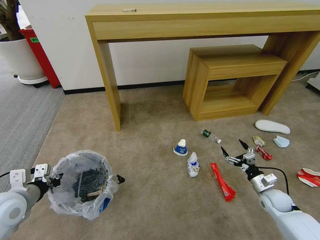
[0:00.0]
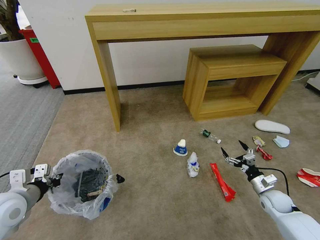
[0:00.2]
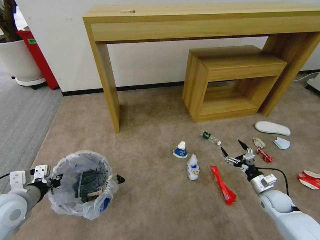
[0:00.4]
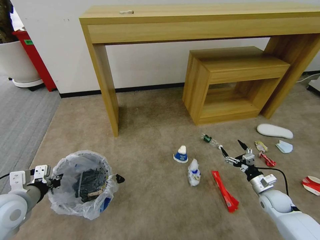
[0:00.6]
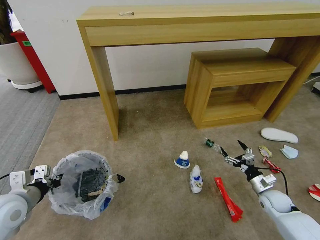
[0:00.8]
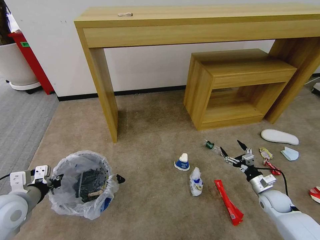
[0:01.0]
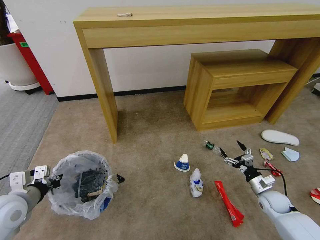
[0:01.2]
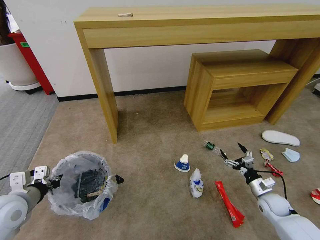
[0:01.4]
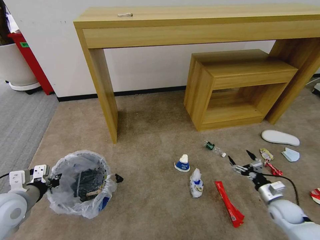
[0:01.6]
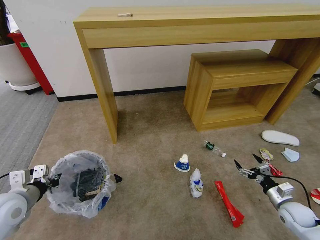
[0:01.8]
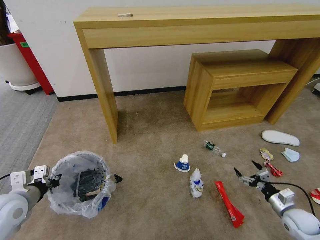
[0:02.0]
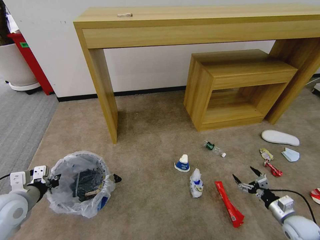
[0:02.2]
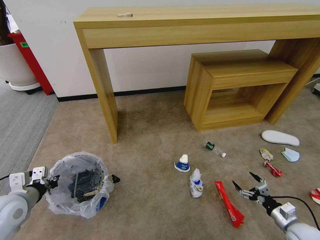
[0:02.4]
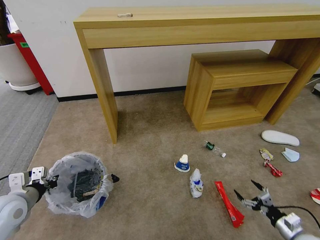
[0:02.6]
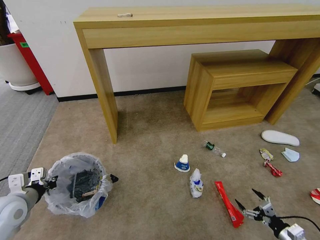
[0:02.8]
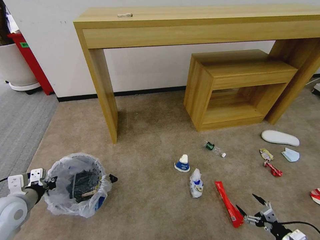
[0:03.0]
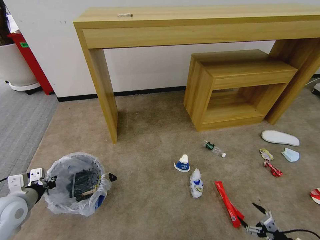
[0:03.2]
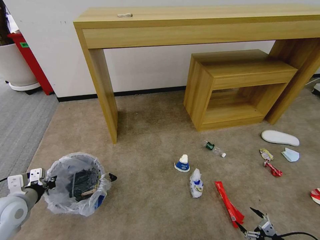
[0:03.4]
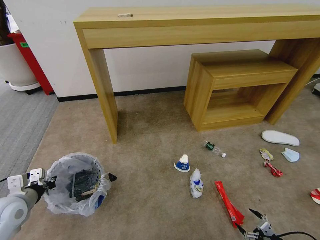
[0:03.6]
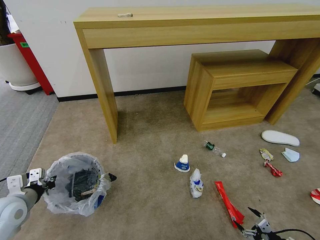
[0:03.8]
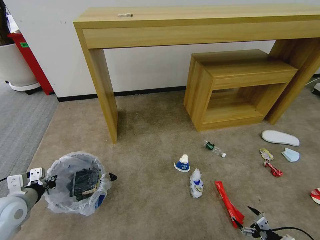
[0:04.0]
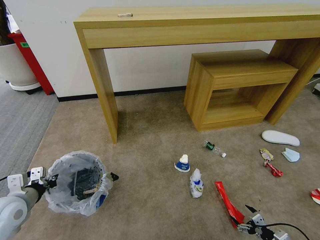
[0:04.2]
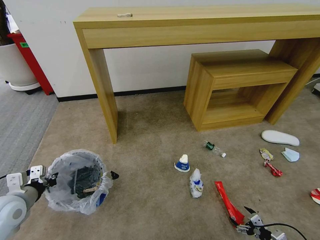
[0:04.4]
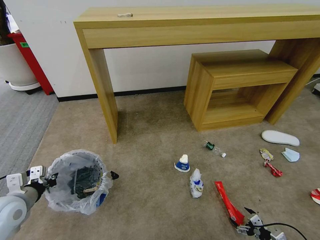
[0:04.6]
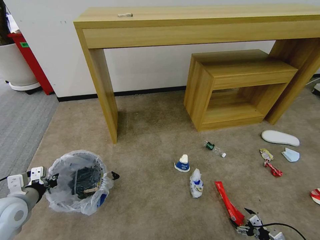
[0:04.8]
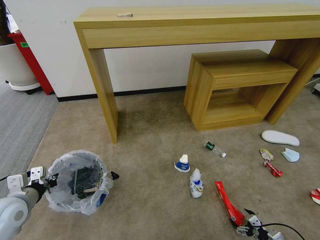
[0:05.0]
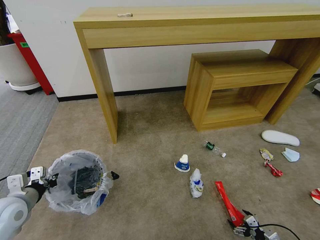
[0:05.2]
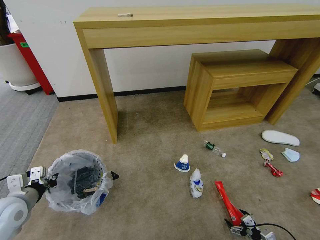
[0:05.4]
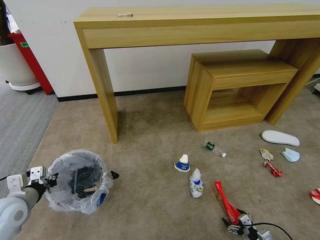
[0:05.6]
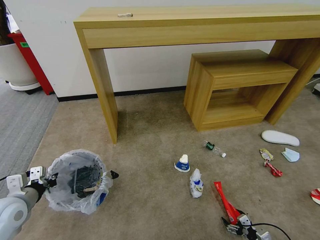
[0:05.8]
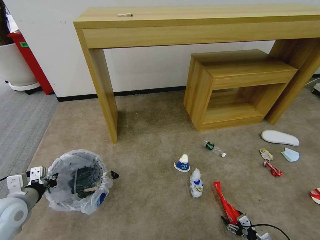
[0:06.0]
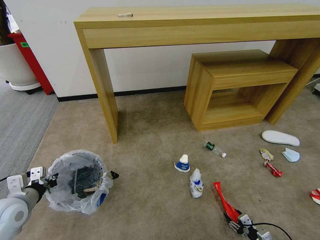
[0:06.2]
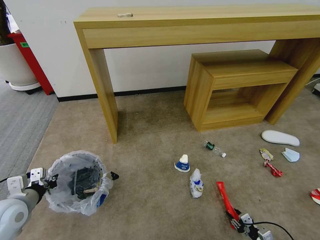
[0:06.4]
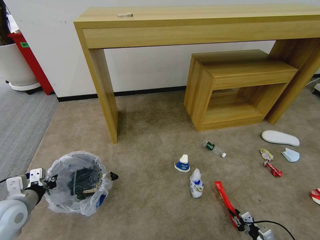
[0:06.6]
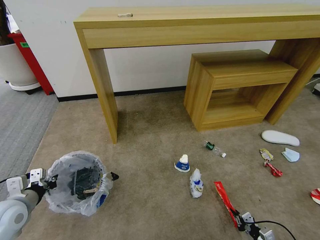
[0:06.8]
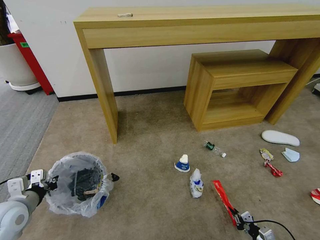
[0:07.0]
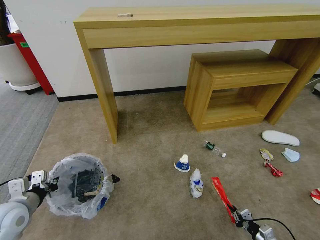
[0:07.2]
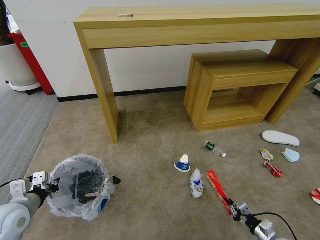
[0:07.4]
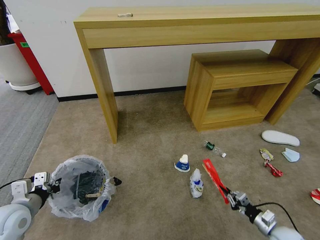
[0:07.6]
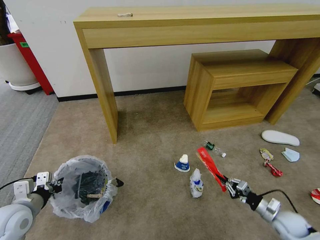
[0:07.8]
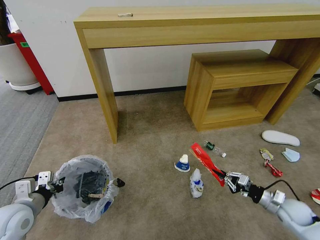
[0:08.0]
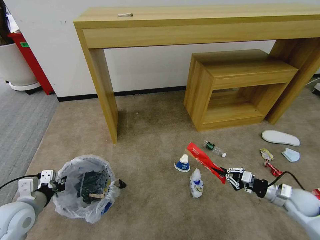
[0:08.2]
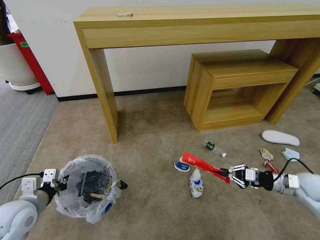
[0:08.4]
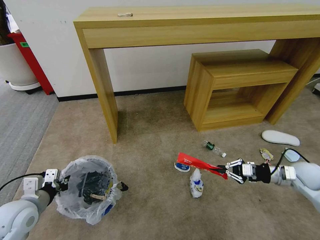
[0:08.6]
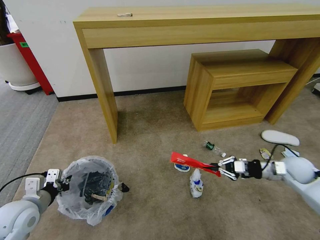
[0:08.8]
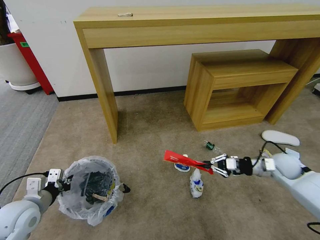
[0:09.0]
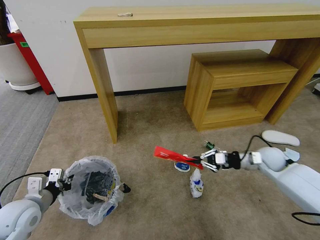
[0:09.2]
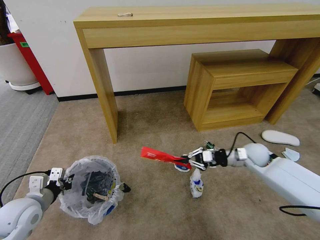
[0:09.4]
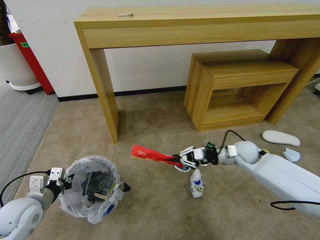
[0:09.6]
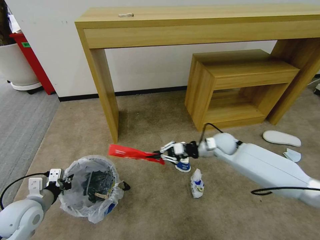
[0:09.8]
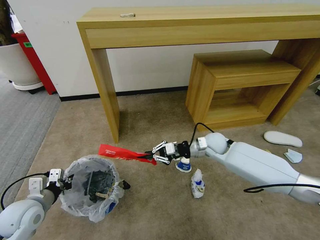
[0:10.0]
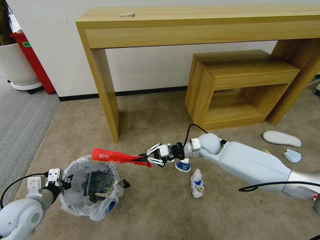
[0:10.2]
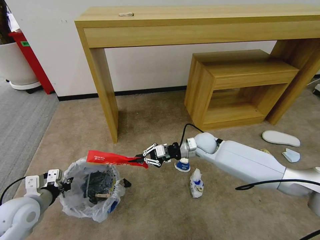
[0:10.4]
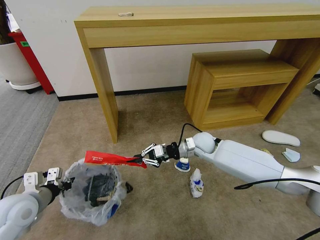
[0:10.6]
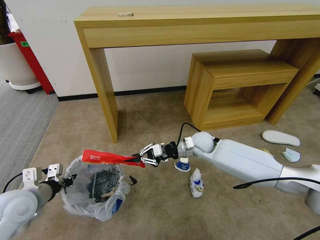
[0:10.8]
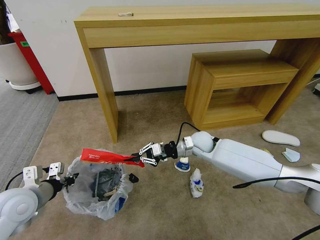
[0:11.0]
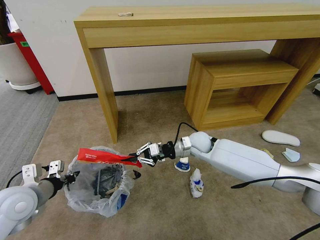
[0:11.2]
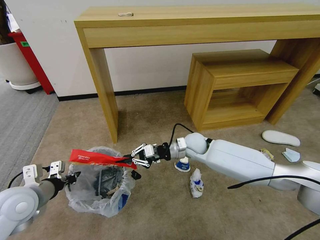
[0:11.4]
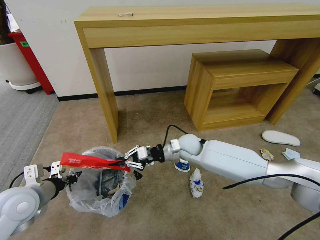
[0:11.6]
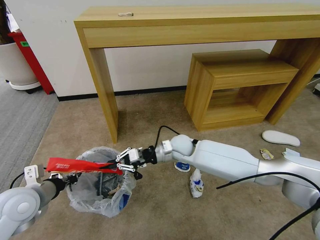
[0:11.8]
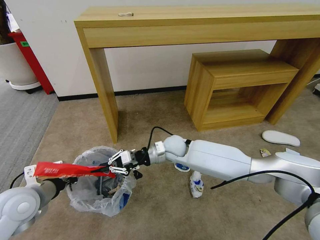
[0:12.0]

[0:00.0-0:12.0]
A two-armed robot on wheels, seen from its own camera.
Task of the whole recording: Pick up the trash bin and place the garbage on the floor into it.
0:01.6 to 0:03.0: The right gripper shifts some 15 cm backward.
0:03.0 to 0:04.4: The right gripper goes some 5 cm downward.
0:04.4 to 0:06.0: The right gripper moves approximately 5 cm.
0:06.0 to 0:07.6: The right gripper is displaced upward and forward by some 10 cm, and closes.
0:07.6 to 0:09.0: The right gripper travels upward and forward by about 30 cm.
0:09.0 to 0:10.4: The right gripper heads to the left, covering approximately 25 cm.
0:10.4 to 0:12.0: The right gripper shifts roughly 10 cm to the left; the left gripper travels upward by some 5 cm.

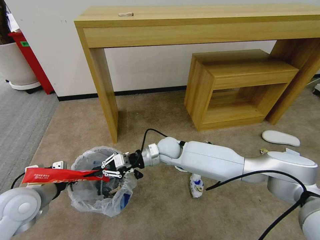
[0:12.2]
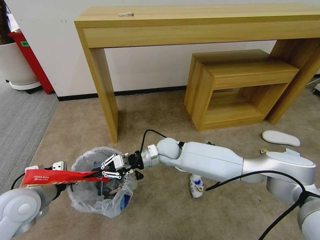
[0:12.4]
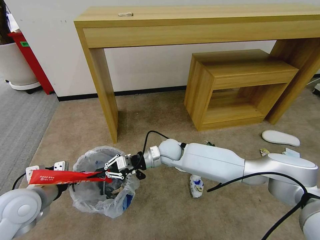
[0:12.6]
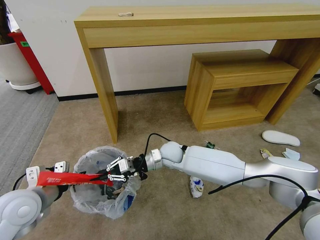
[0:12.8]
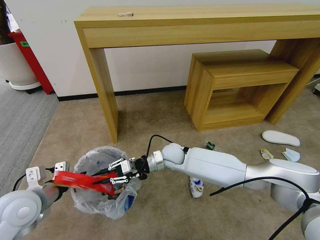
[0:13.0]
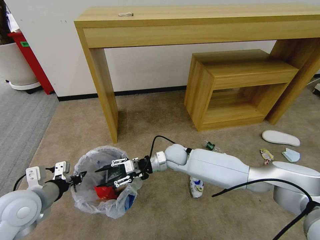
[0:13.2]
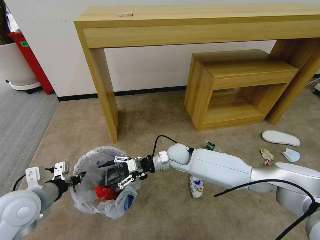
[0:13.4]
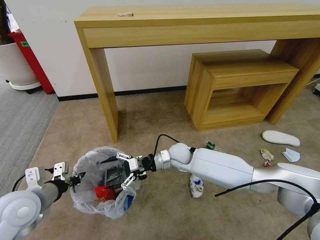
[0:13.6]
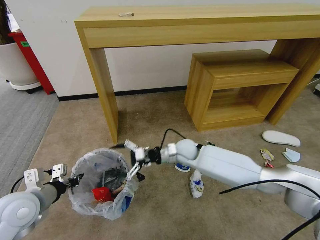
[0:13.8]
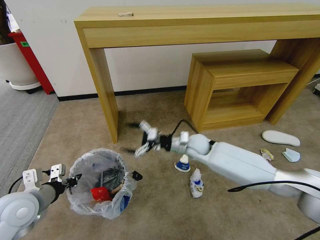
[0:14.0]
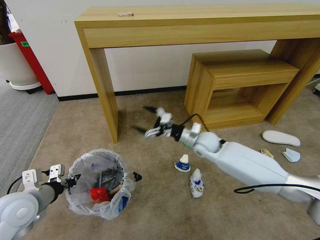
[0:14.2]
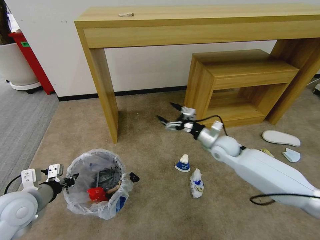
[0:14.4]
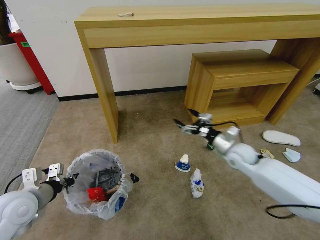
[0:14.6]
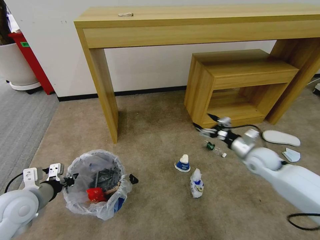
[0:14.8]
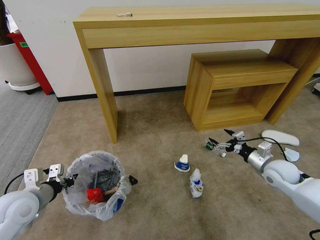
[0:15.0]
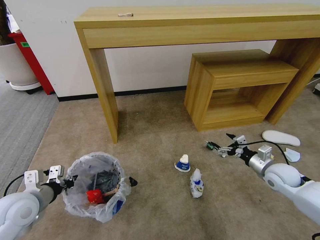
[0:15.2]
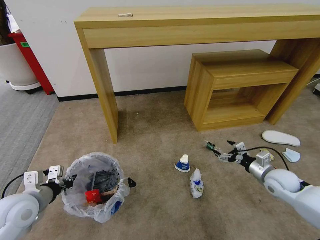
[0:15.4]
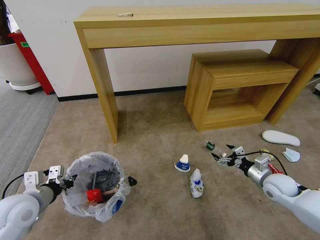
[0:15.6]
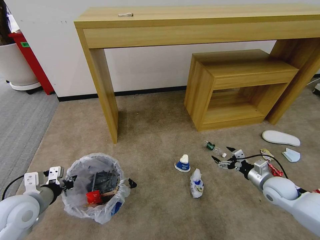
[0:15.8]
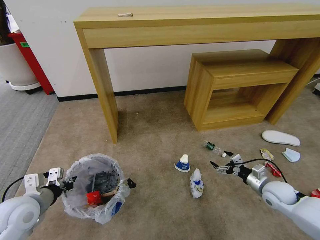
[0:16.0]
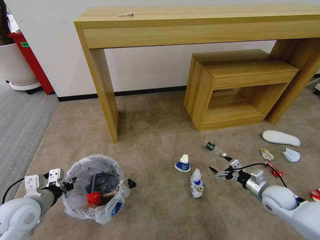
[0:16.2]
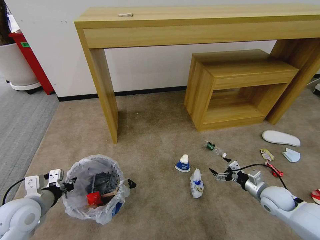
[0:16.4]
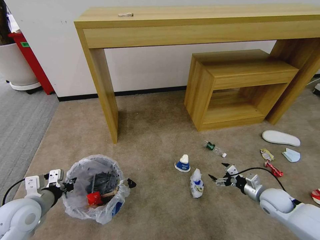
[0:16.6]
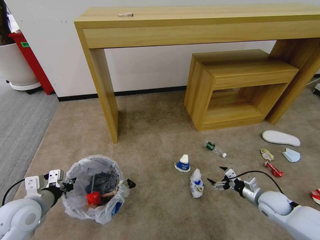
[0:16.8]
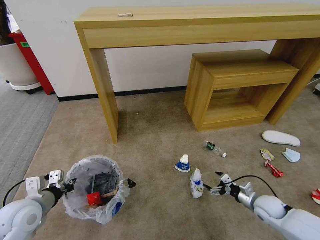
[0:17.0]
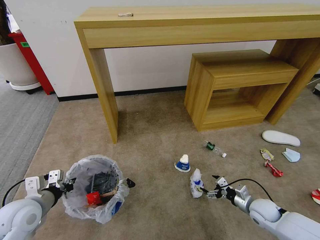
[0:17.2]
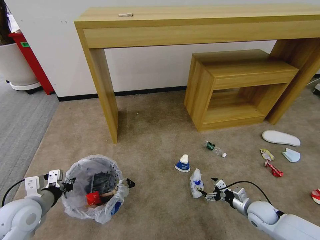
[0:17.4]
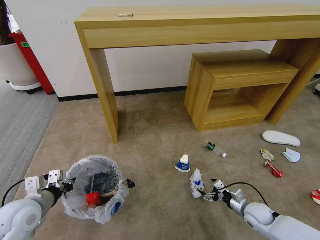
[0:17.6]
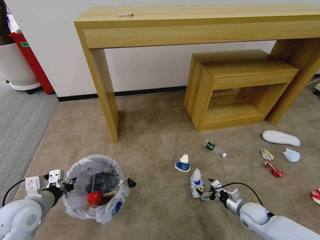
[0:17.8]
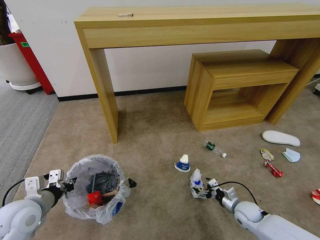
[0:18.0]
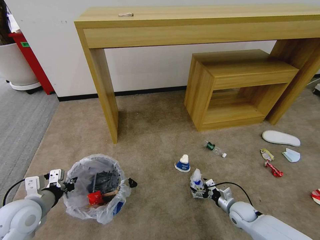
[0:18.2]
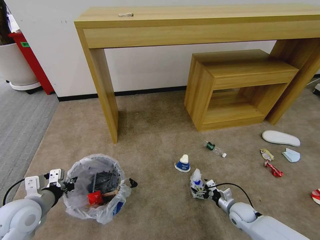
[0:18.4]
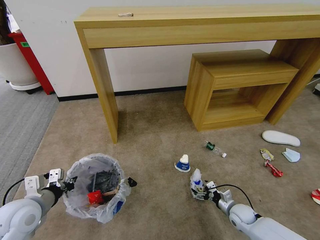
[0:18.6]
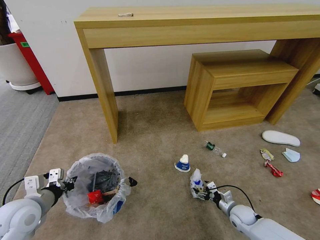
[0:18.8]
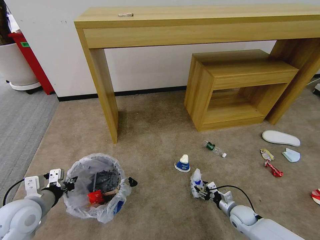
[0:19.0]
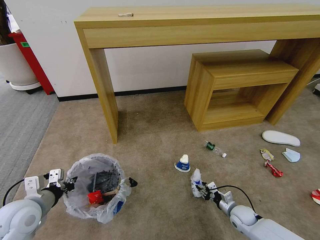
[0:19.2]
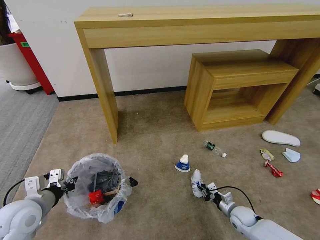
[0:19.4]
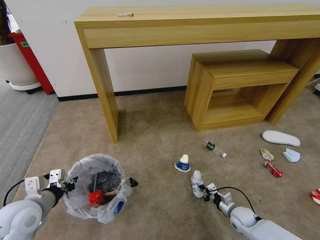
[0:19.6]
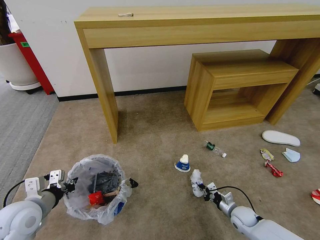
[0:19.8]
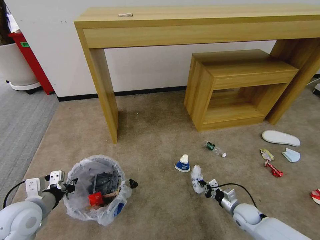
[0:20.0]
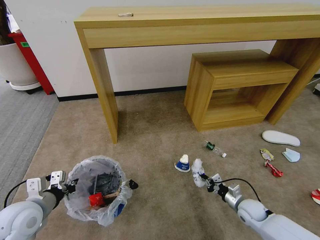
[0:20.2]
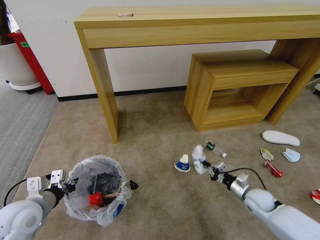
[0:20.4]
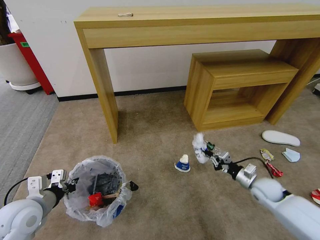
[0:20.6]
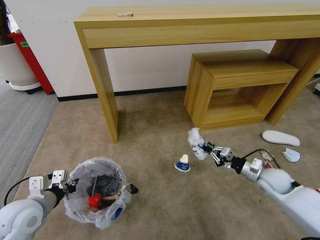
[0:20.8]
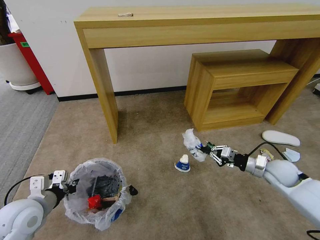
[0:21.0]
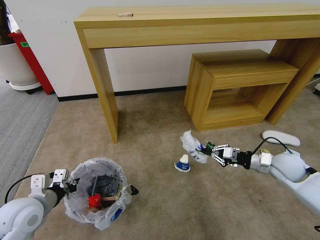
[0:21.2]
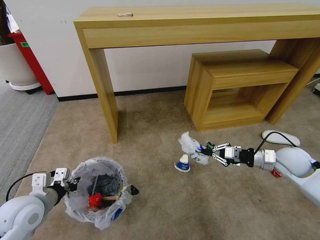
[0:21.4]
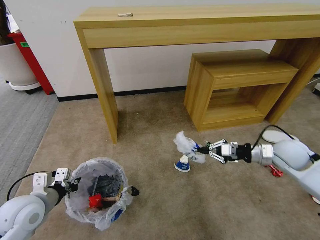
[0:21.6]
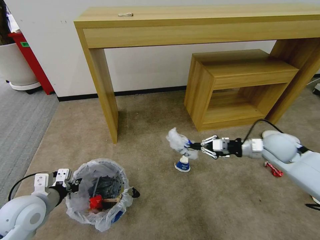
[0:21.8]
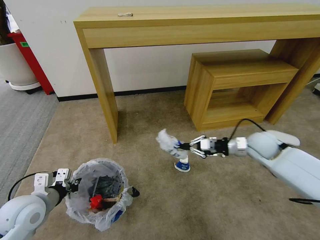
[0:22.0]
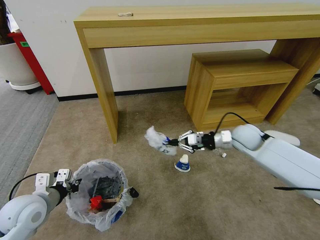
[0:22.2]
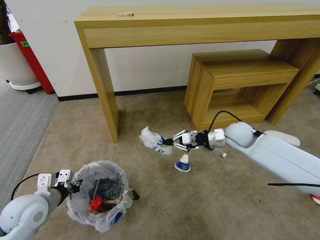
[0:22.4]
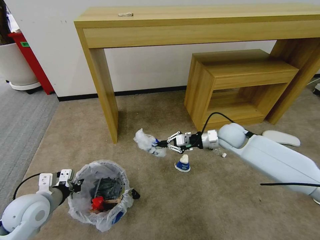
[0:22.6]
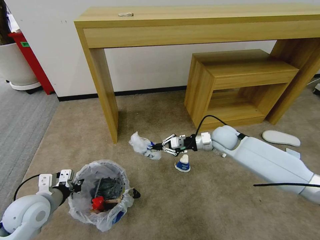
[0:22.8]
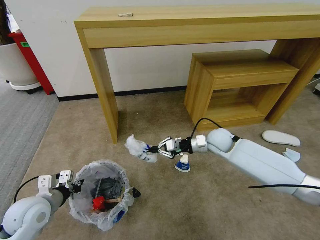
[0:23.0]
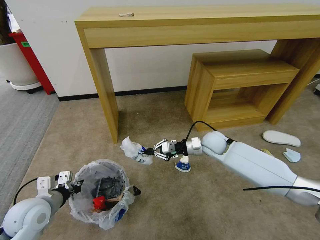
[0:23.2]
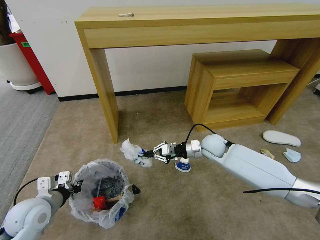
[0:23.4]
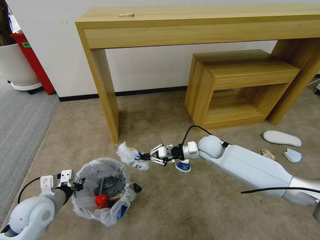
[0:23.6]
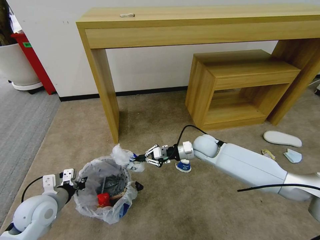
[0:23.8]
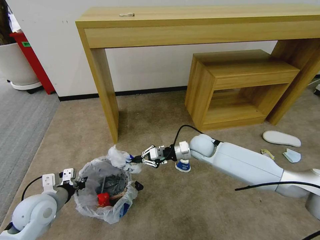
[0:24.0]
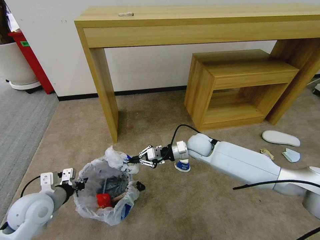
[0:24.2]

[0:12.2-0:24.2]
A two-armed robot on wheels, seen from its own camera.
Task of the whole recording: Pick up the trash bin and place the garbage on the floor into it.
0:12.2 to 0:13.8: The right gripper goes some 5 cm to the right, and opens its fingers.
0:13.8 to 0:15.2: The right gripper travels to the right by some 35 cm.
0:15.2 to 0:16.6: The right gripper shifts some 10 cm downward and backward.
0:16.6 to 0:18.2: The right gripper shifts approximately 15 cm downward and to the left.
0:18.2 to 0:19.8: The right gripper closes its fingers.
0:19.8 to 0:21.2: The right gripper is displaced upward by some 25 cm.
0:21.2 to 0:22.6: The right gripper is displaced to the left and forward by roughly 20 cm.
0:22.6 to 0:24.2: The right gripper heads to the left, covering about 10 cm.
